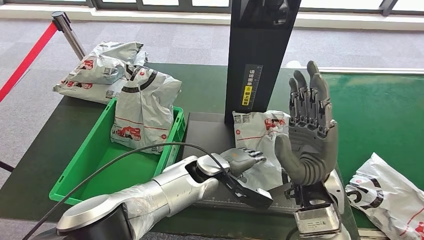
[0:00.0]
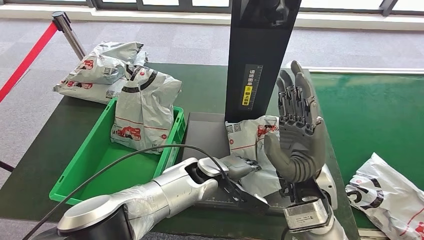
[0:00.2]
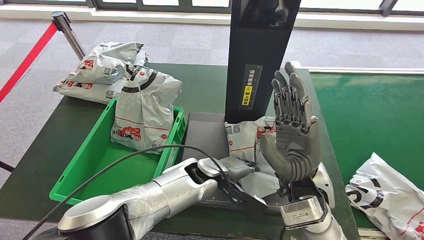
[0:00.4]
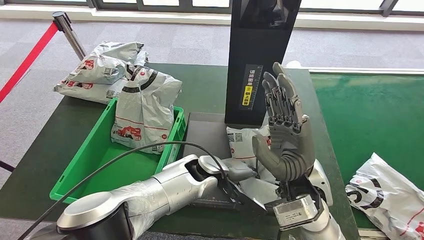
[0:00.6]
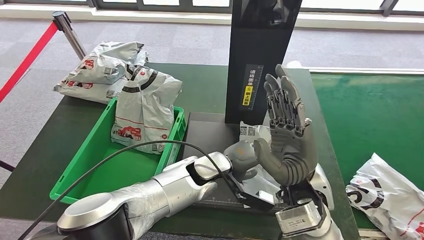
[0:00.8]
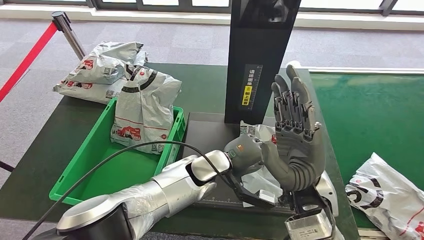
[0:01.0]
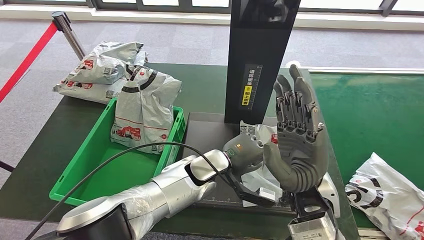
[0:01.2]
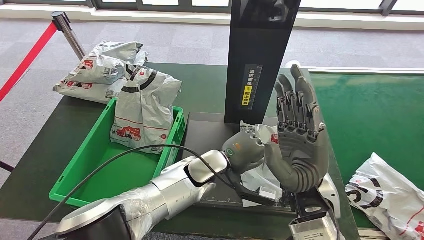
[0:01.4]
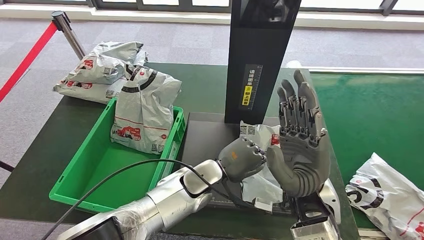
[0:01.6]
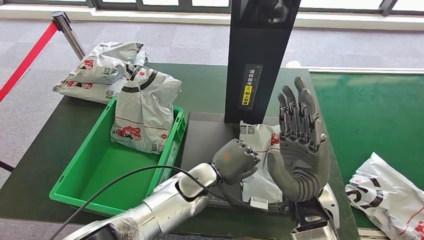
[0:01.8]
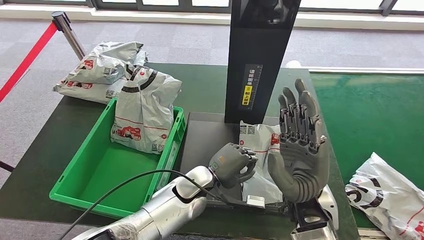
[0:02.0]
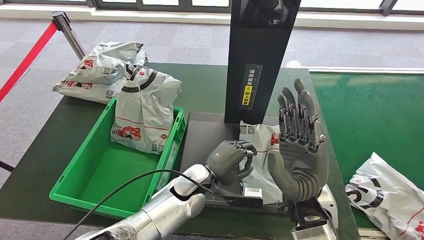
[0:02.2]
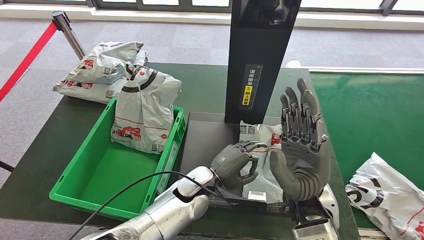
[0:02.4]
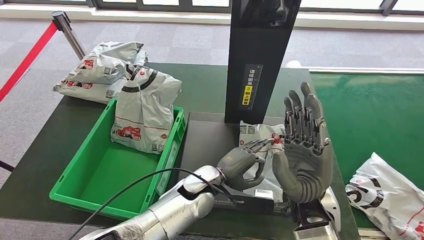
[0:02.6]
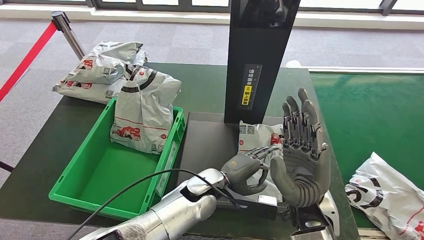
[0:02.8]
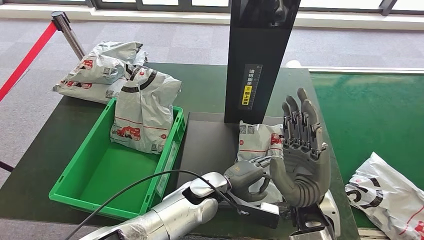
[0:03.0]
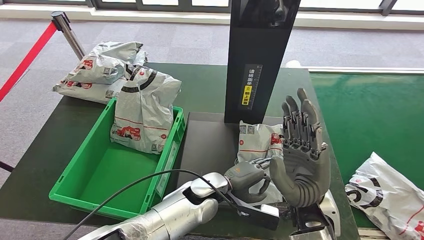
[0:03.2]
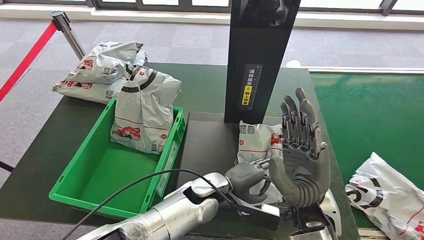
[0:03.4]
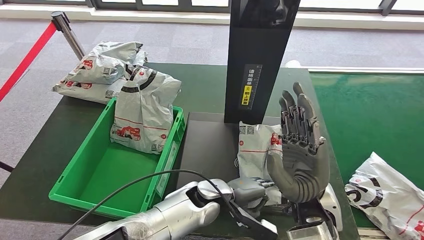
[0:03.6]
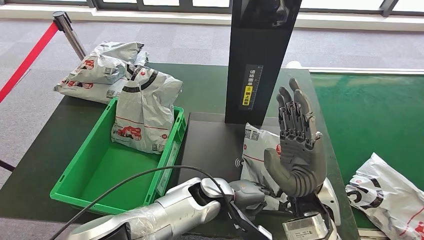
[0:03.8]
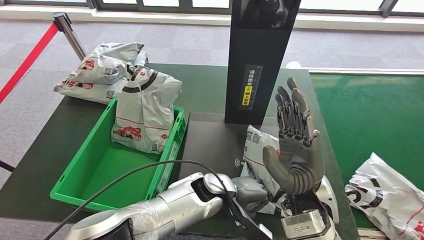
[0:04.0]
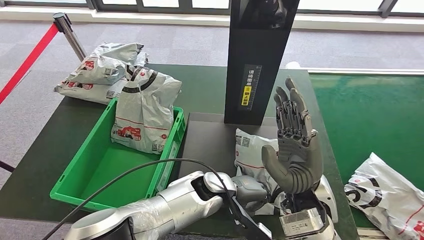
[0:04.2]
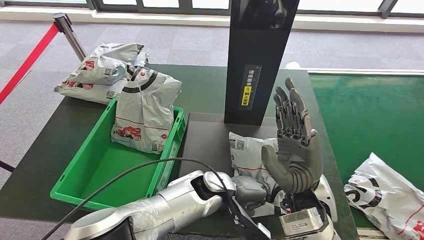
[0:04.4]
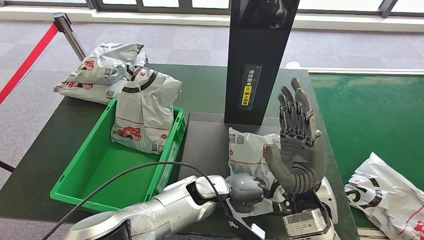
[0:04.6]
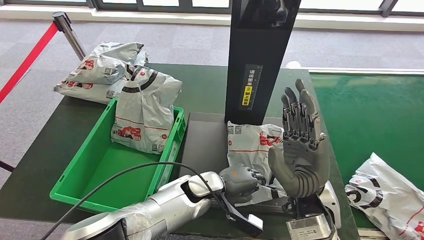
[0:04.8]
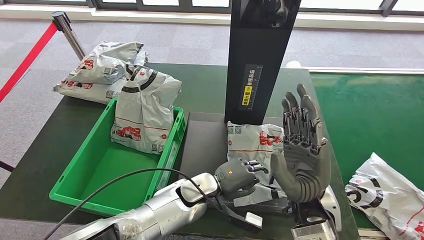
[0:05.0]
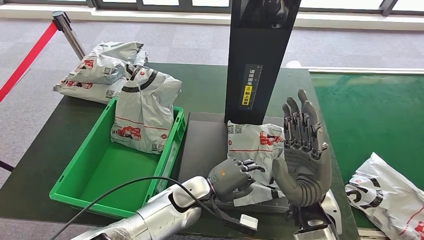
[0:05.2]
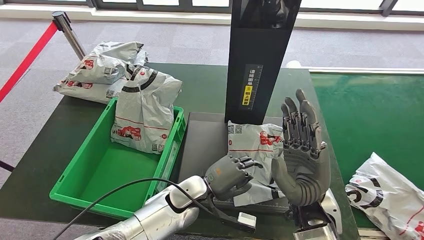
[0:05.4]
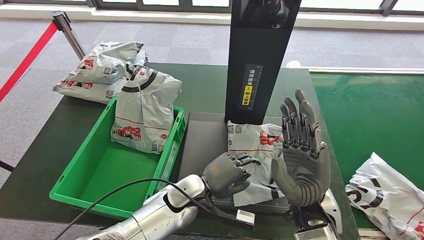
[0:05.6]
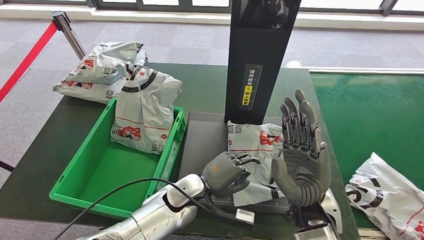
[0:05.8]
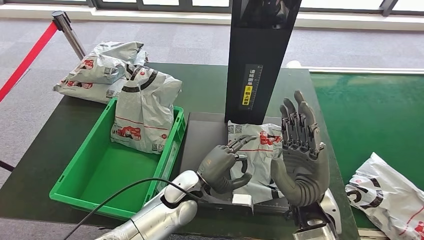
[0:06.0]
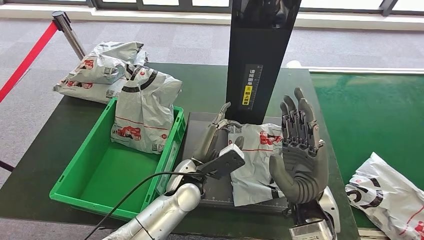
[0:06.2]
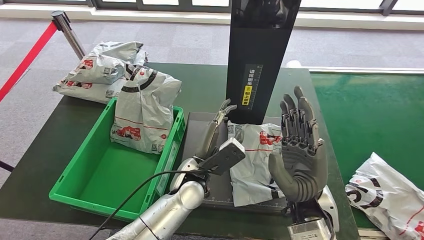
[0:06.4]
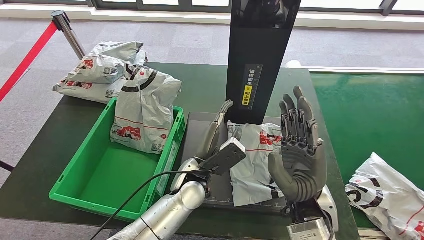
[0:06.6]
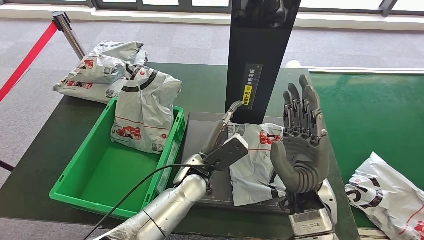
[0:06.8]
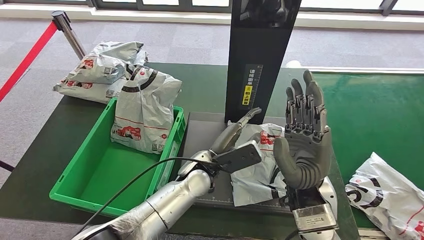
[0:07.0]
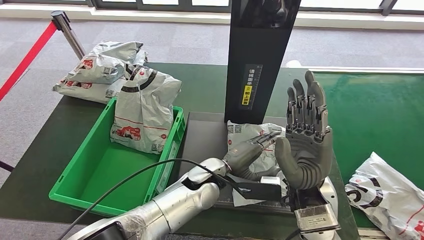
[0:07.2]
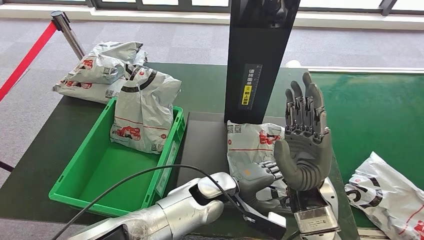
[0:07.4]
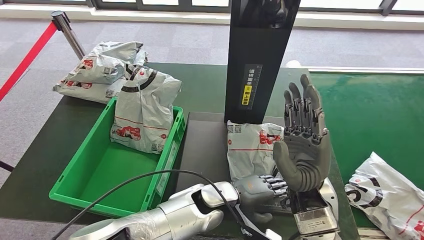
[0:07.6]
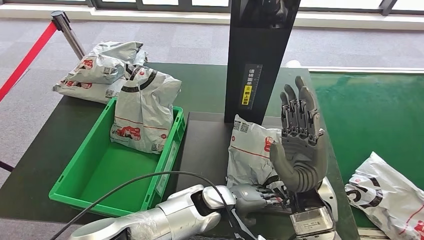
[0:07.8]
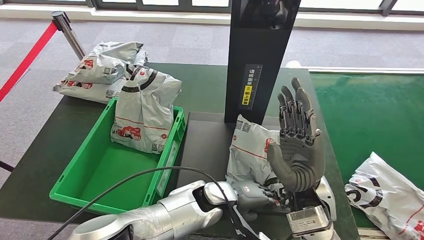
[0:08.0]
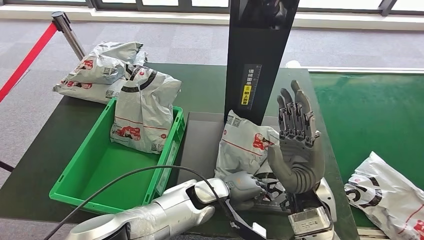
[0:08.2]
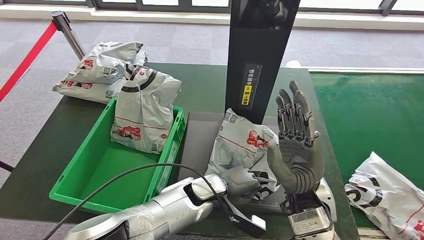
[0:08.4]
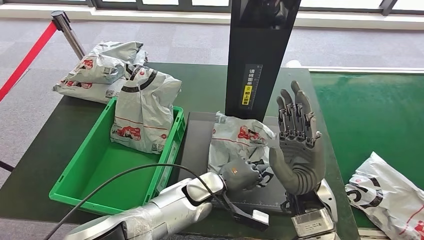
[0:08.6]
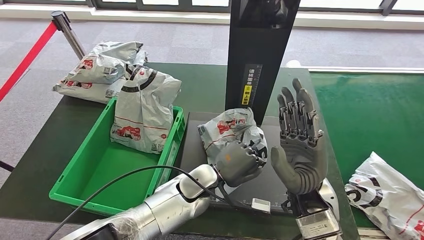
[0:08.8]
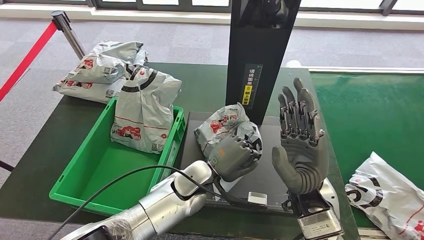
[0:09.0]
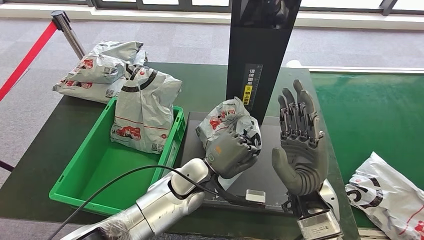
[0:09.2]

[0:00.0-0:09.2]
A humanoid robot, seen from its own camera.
Step, 0:00.0 to 0:09.2: Pick up the parcel from the inbound machine.
0:06.2 to 0:07.6: The left hand shifts roughly 5 cm to the right.
0:07.6 to 0:09.2: The left hand shifts roughly 5 cm to the left.
